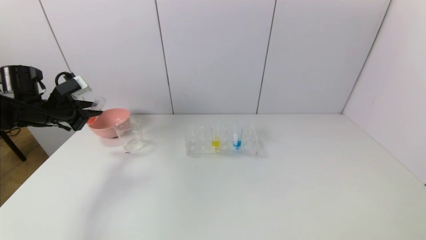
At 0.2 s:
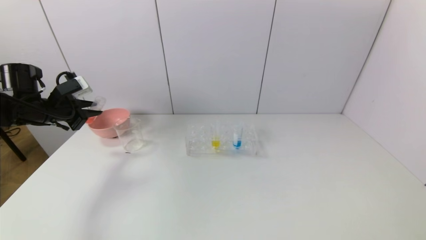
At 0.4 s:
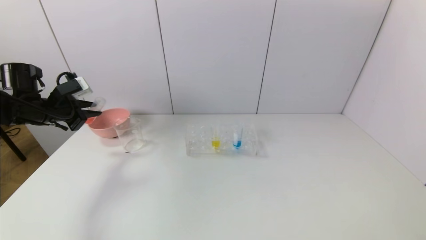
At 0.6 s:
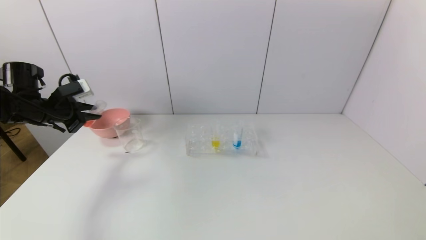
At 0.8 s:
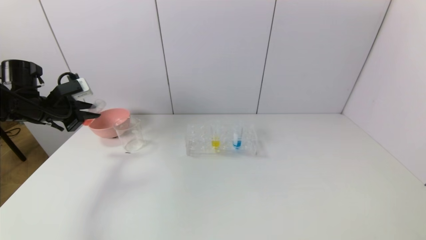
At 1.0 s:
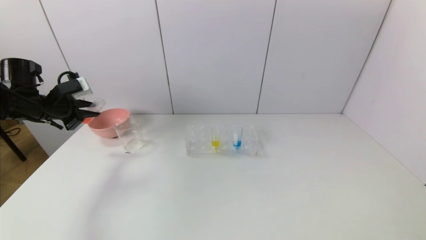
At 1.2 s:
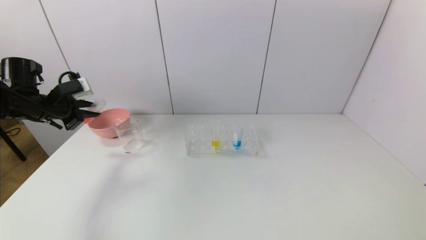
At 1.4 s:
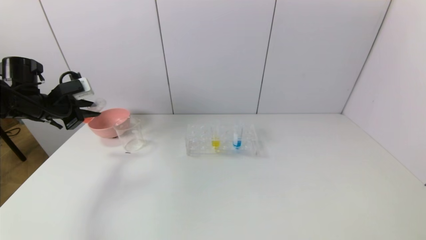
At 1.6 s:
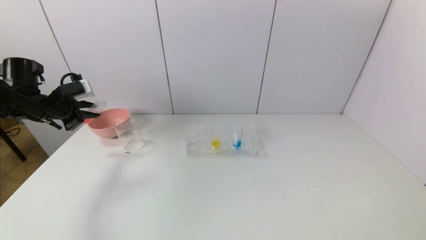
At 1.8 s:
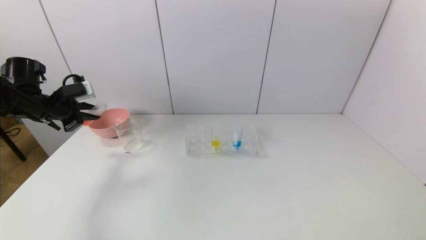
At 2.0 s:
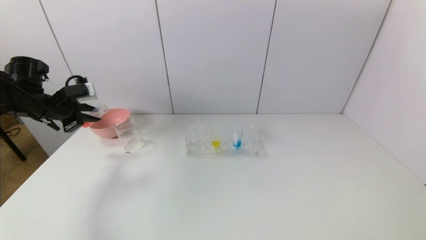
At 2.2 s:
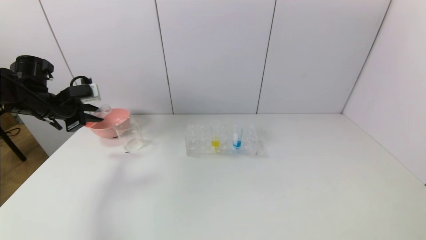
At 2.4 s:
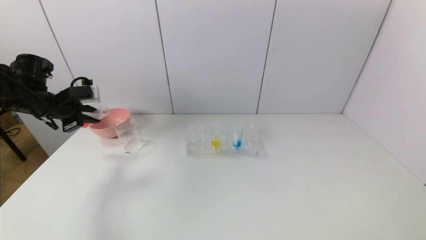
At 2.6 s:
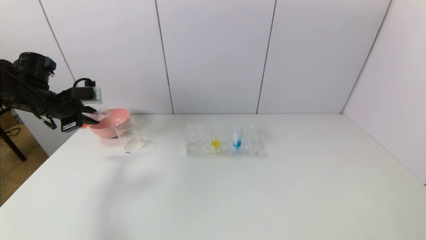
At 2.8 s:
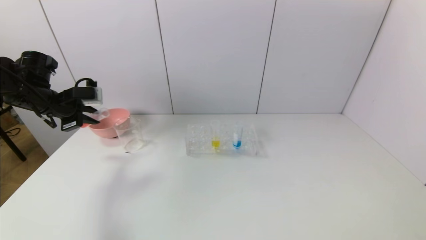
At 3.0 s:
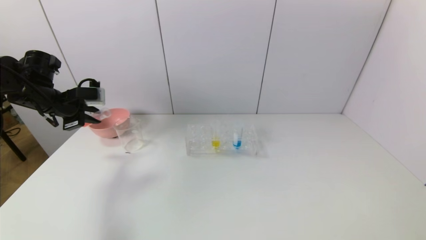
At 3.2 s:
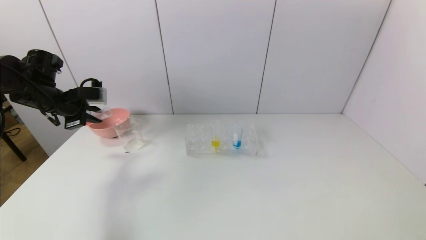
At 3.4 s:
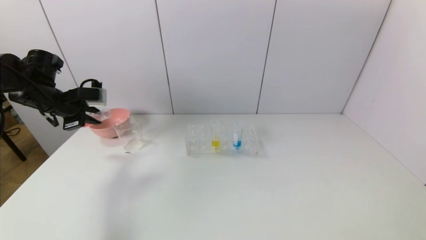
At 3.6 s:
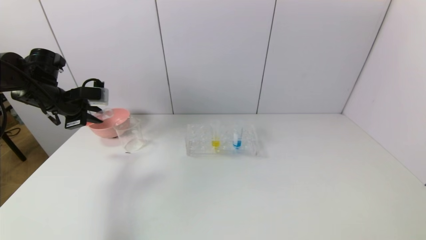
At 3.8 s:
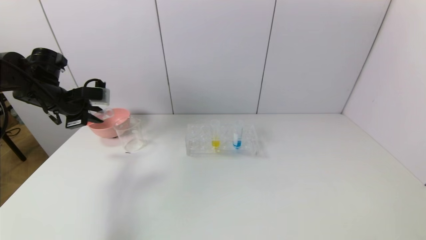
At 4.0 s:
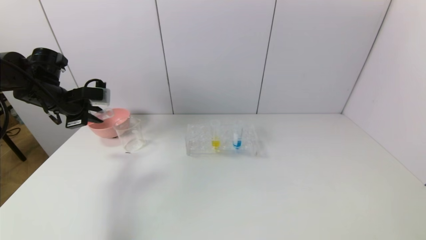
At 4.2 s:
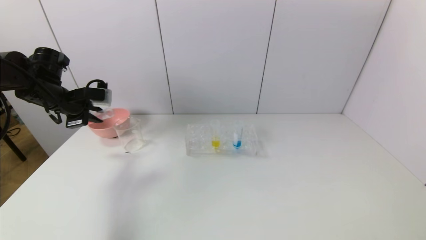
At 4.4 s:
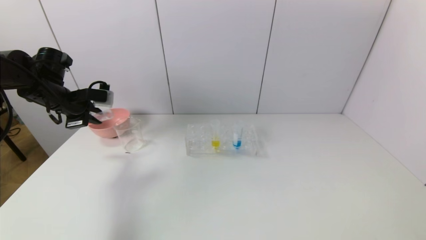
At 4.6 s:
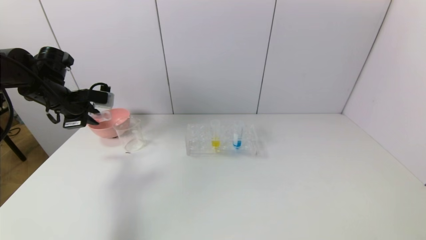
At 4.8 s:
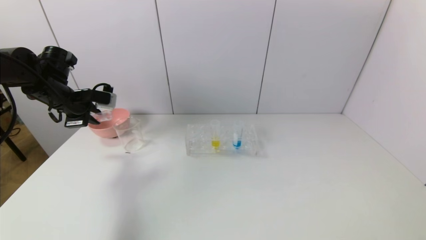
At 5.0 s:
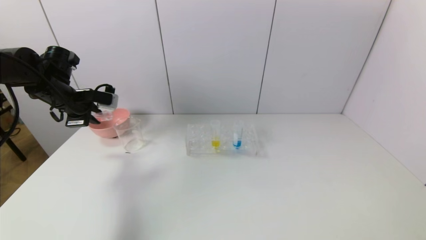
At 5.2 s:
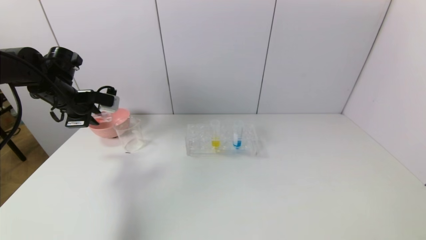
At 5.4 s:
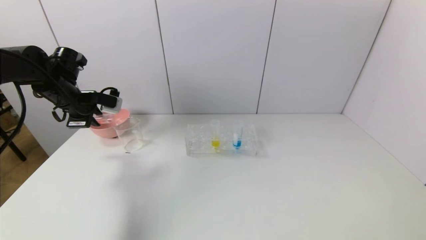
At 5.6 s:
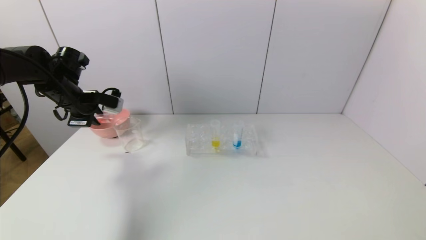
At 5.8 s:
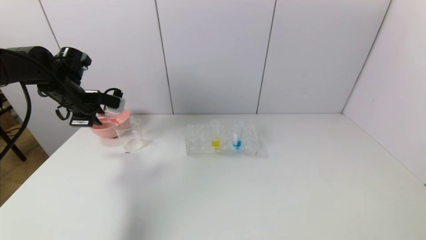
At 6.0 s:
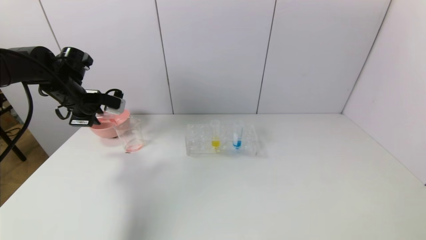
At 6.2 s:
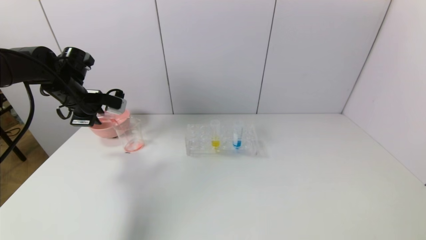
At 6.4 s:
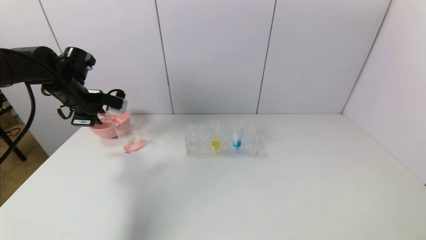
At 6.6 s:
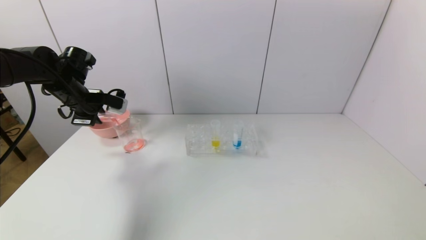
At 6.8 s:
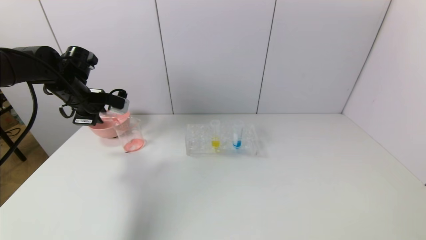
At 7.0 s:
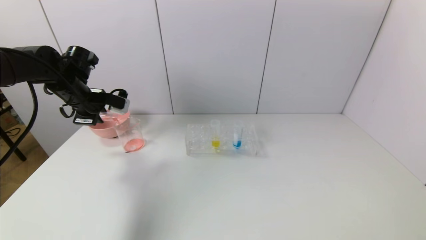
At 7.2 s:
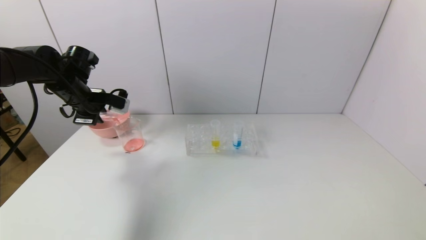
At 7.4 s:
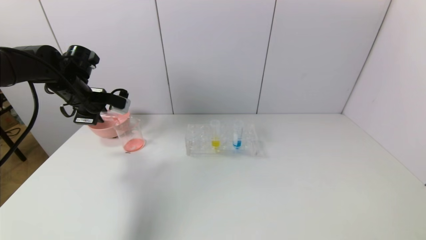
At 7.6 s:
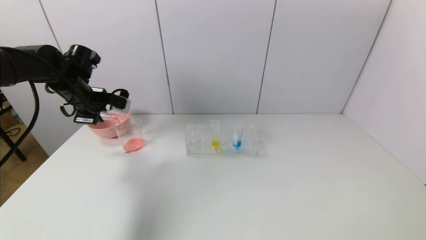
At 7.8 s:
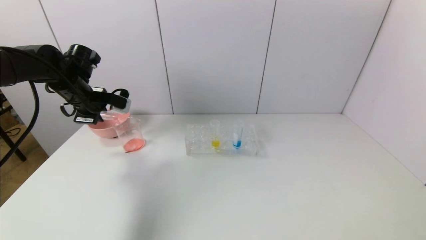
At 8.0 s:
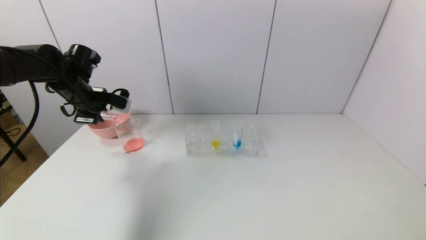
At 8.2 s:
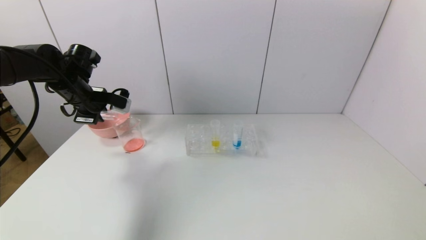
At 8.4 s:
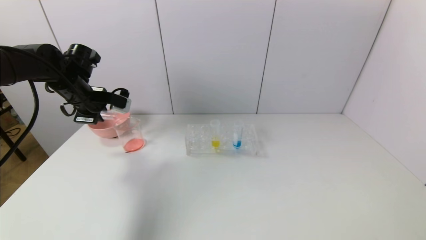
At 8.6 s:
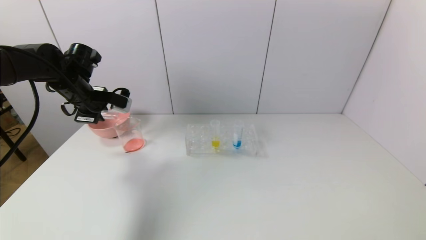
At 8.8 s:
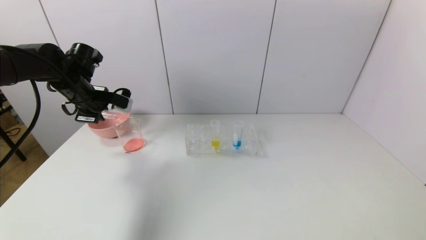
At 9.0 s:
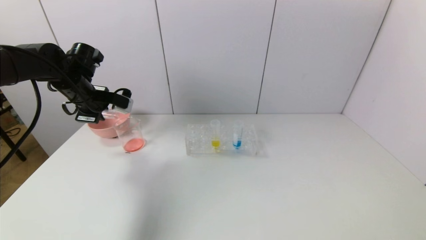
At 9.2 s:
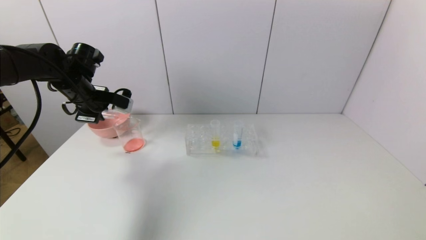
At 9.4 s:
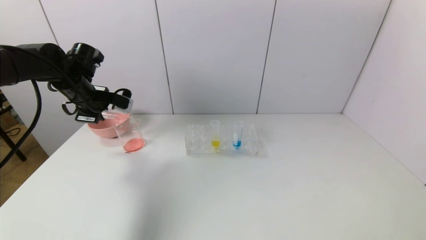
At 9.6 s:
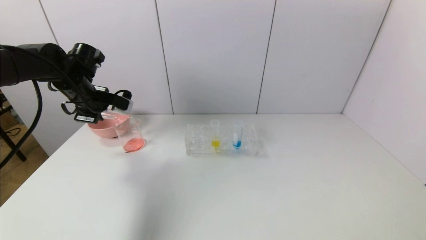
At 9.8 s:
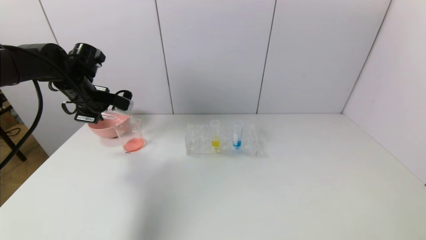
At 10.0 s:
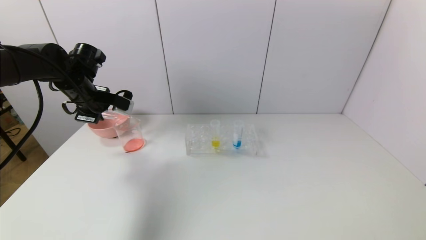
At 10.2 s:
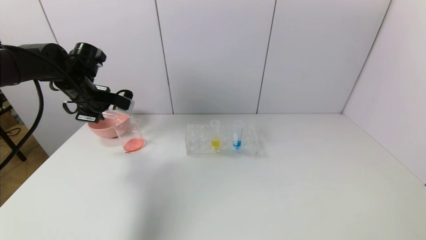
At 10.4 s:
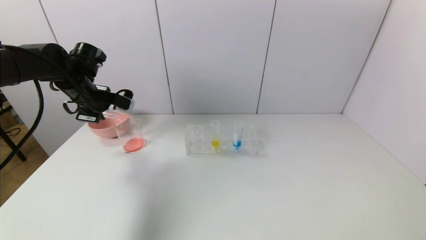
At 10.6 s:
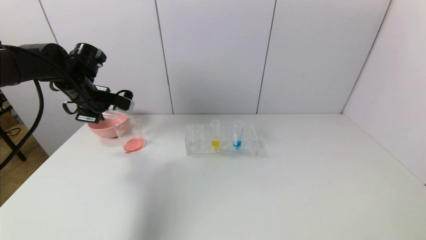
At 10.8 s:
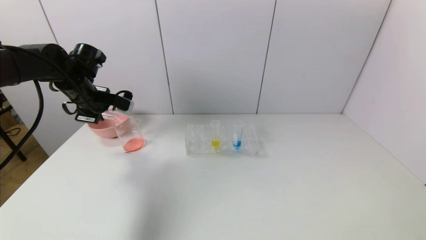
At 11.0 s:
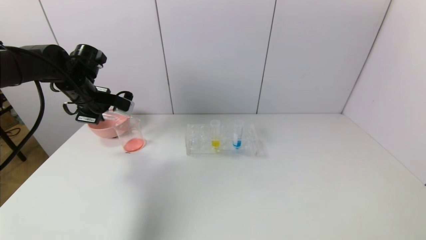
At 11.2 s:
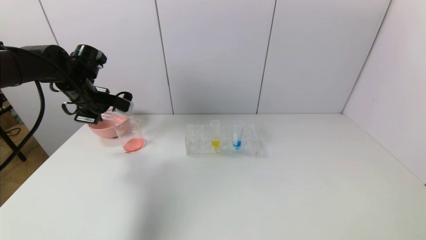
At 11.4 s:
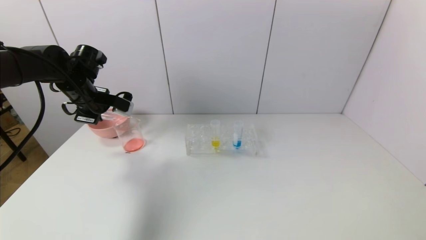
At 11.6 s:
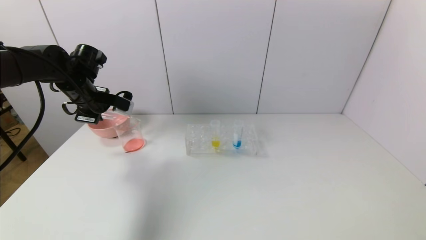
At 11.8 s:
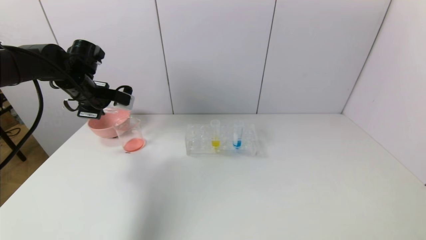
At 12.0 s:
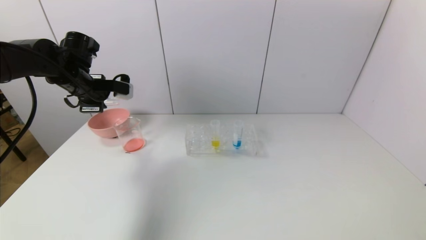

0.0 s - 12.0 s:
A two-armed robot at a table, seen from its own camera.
Task of the whole recording: pick up the test tube with yellow pigment and the test tube with red pigment by grippers and pour them into the beaker.
Step, 0.0 s - 9.2 s: Pour the red reagent into the graduated cylinder with the left gripper.
0.0 s - 1.6 s: The grippers move only a little.
1.6 s - 3.0 s: The grippers make only small movements.
3.0 s - 4.4 s: The grippers stay close to where they were, moving slightly.
4.4 s - 7.6 s: The grippers make only small movements.
7.6 s - 10.4 s: Both grippers stay about where they are.
10.4 s - 12.0 s: The grippers stay close to where they were, moving slightly.

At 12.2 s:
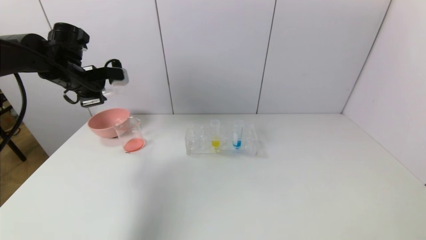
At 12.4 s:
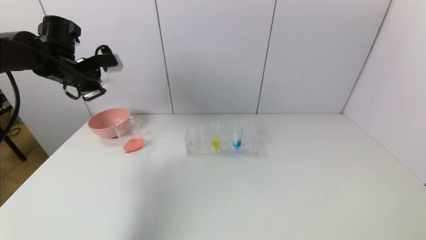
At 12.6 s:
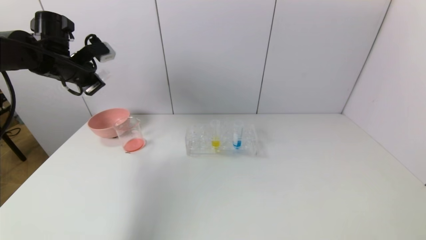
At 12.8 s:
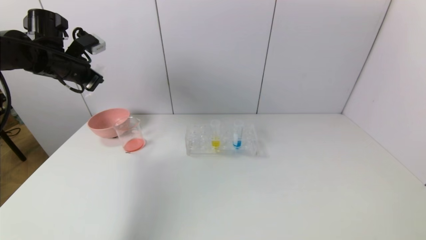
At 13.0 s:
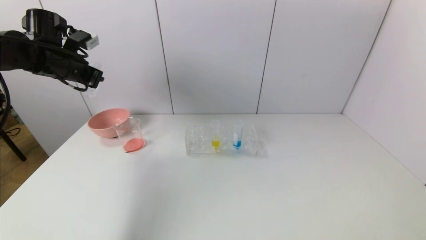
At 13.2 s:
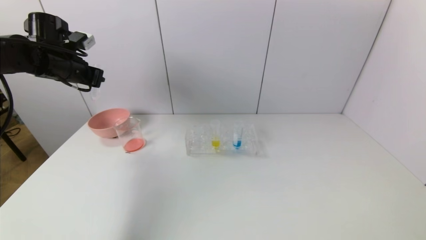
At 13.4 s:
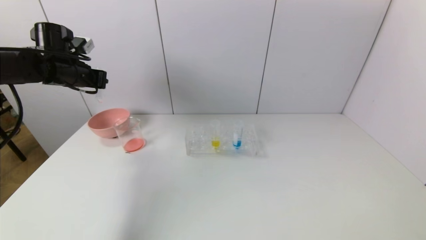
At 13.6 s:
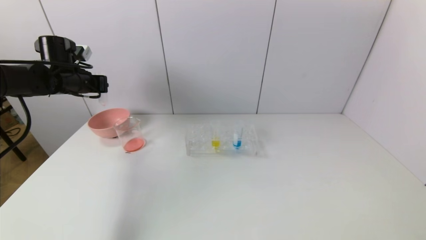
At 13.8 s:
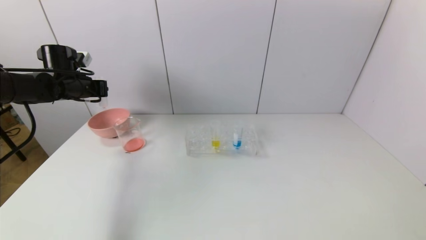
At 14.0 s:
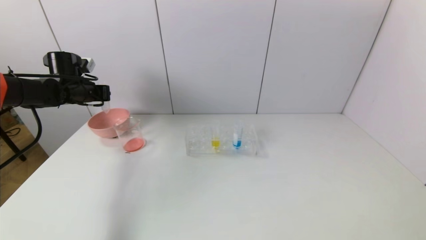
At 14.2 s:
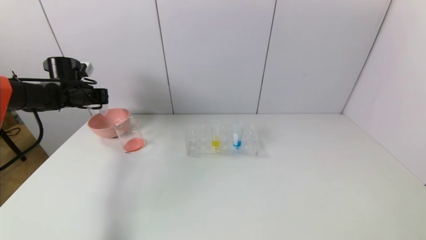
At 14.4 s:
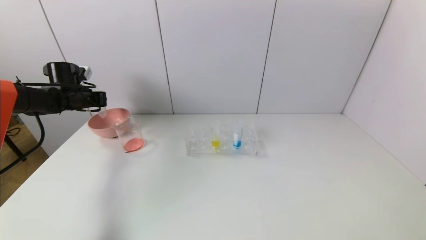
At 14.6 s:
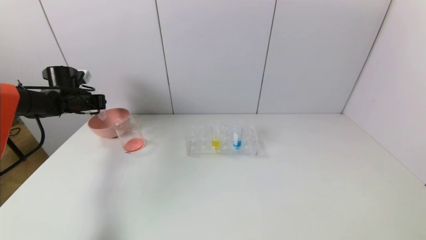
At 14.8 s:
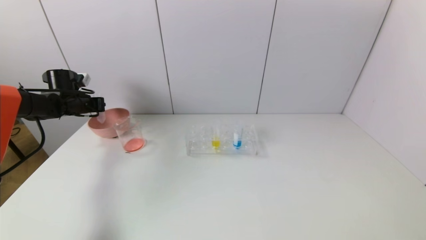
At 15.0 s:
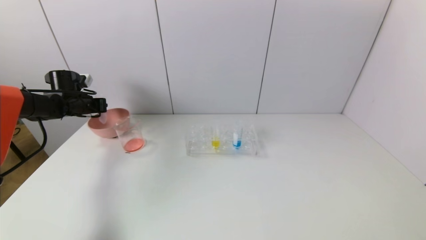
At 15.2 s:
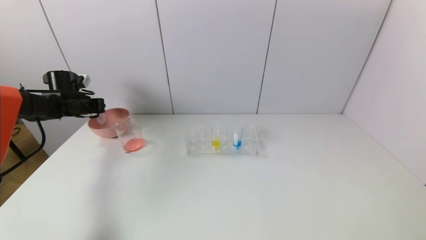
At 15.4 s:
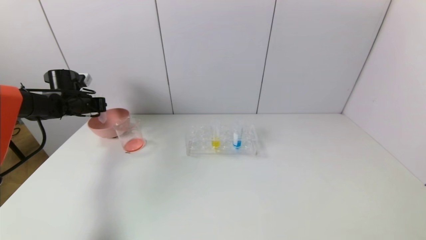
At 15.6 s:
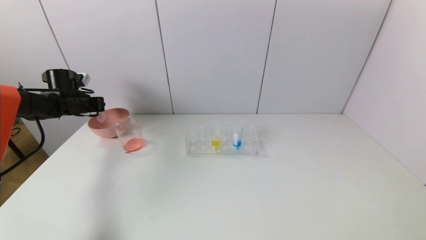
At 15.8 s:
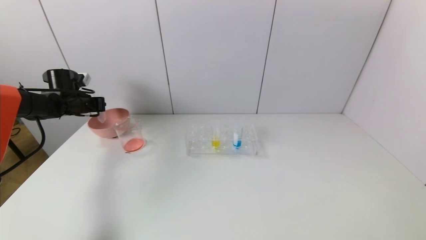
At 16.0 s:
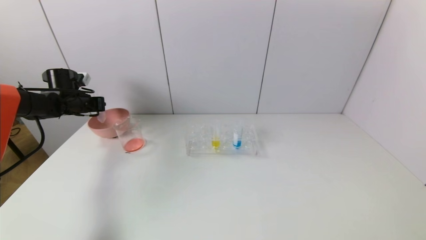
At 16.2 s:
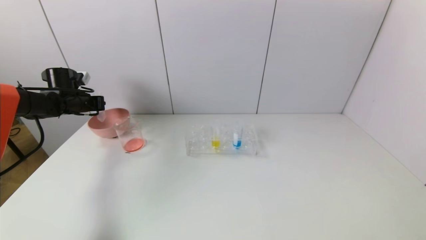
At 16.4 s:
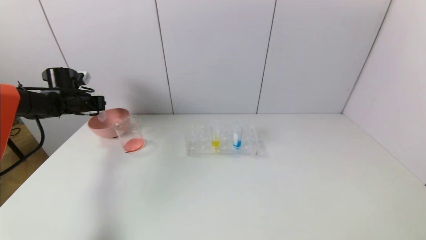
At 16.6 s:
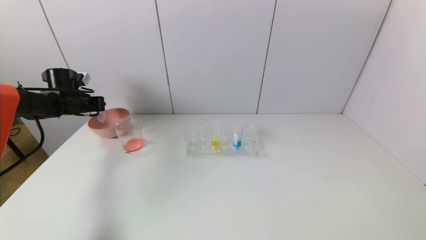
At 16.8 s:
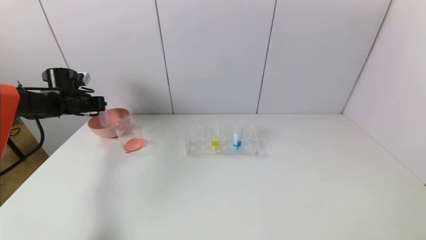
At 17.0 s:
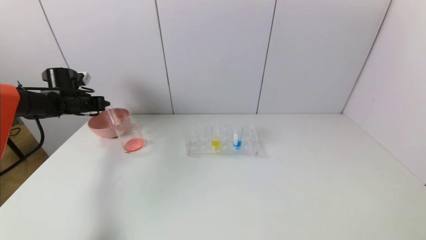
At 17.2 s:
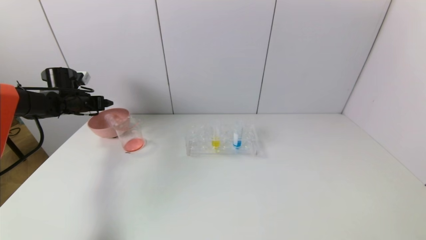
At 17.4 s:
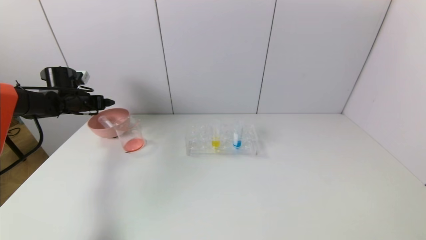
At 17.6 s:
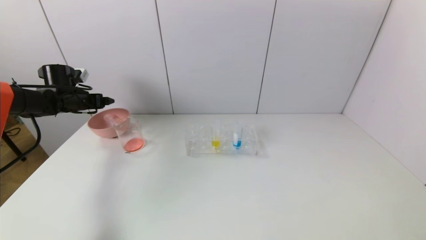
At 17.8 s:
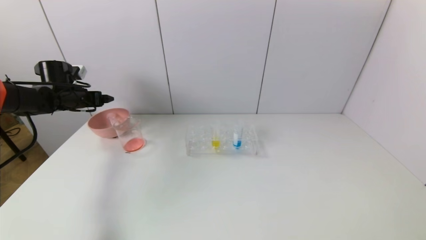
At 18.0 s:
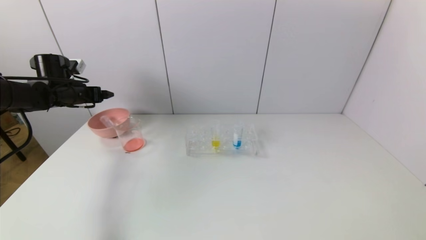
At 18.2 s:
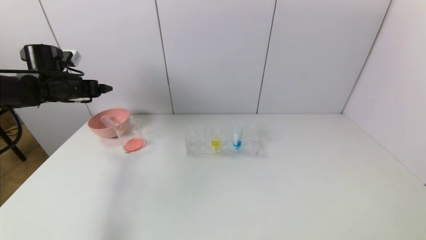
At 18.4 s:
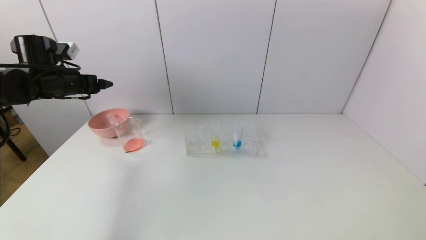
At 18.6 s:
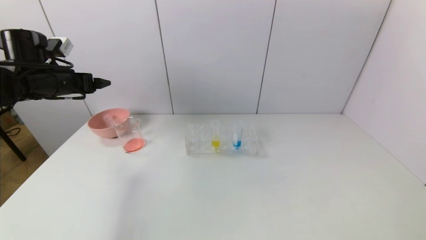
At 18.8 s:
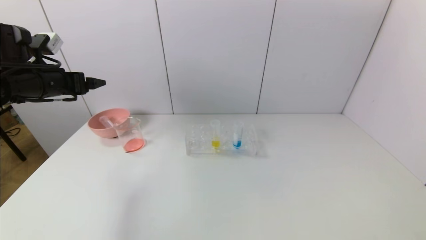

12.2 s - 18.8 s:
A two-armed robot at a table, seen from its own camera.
Task of the whole recording: pick up the test tube with yellow pigment and the test tube with red pigment by grippers and pour them into the beaker.
Step, 12.2 s - 17.0 s: Place the test tube into the pink bowl with the left gripper.
12.2 s - 13.8 s: The left gripper travels downward by approximately 5 cm.
13.8 s - 15.4 s: The left gripper goes about 5 cm downward.
15.4 s - 17.2 s: The left gripper opens its fingers.
17.2 s - 18.8 s: The left gripper moves backward, upward and to the right, some 20 cm.
